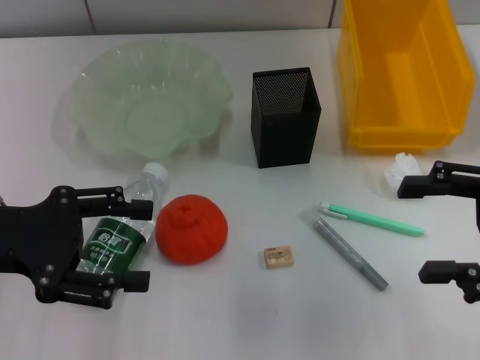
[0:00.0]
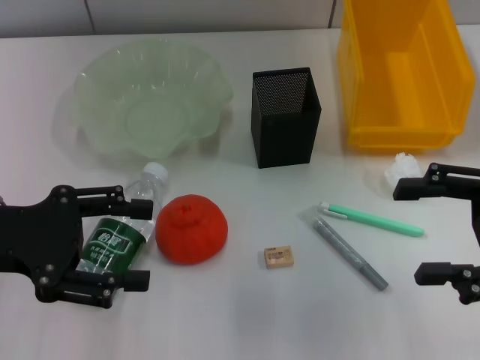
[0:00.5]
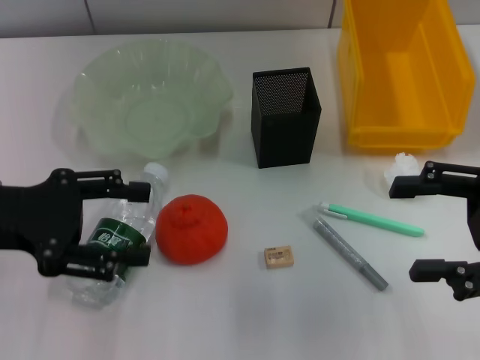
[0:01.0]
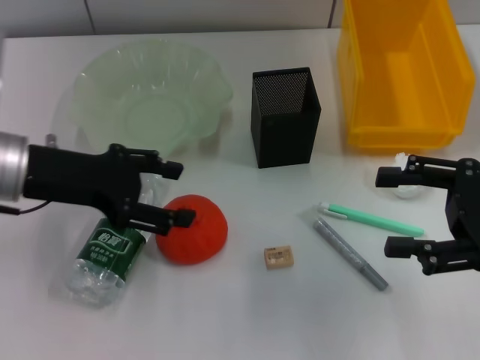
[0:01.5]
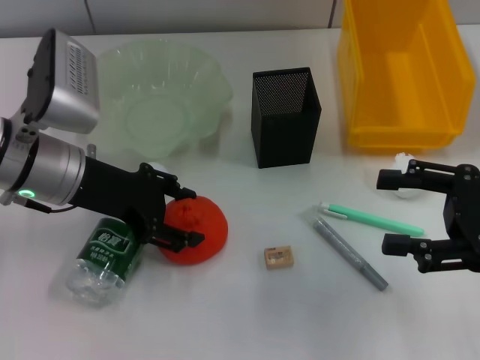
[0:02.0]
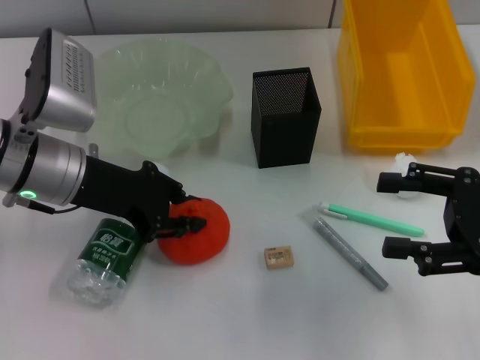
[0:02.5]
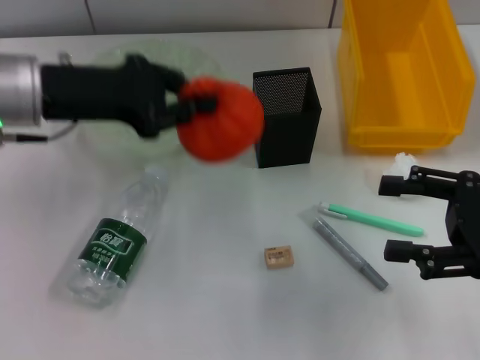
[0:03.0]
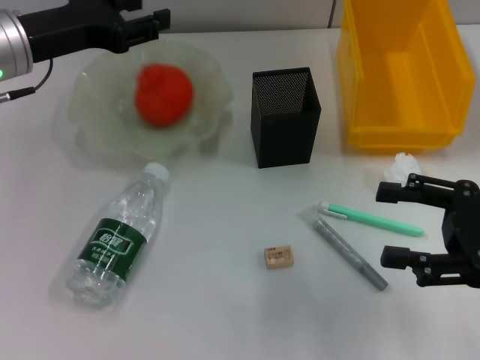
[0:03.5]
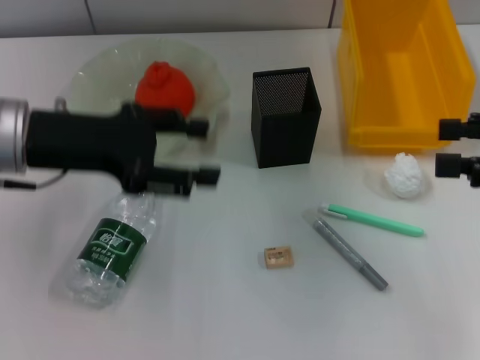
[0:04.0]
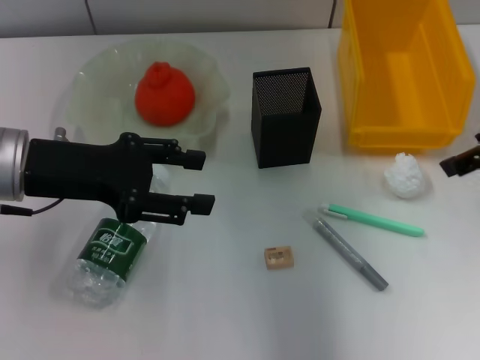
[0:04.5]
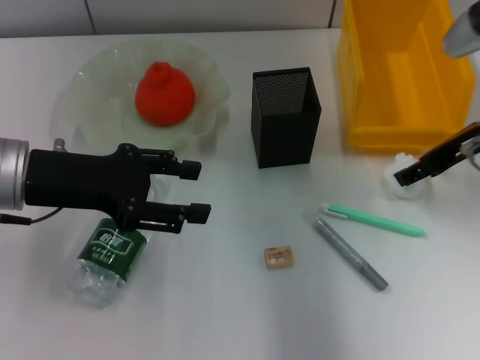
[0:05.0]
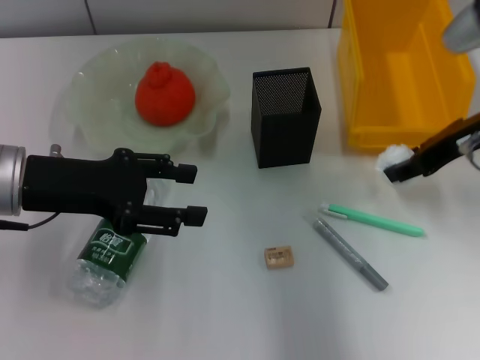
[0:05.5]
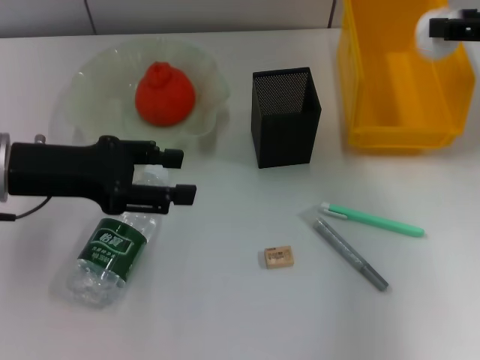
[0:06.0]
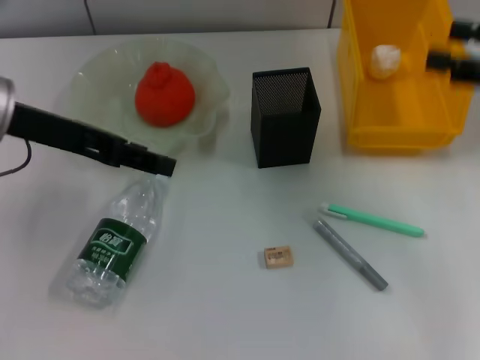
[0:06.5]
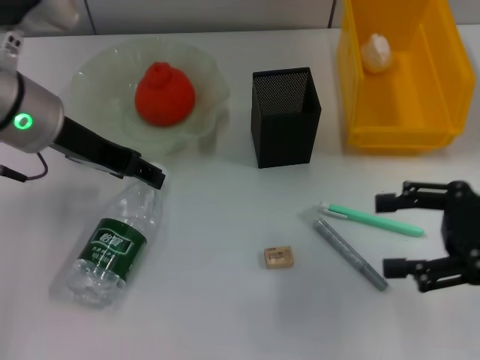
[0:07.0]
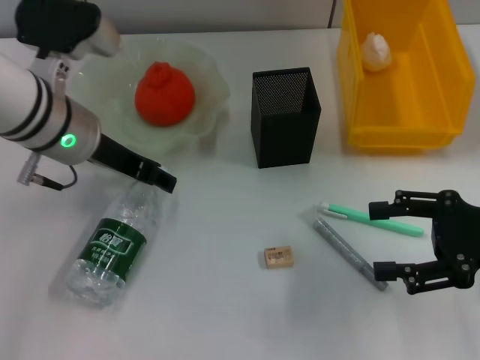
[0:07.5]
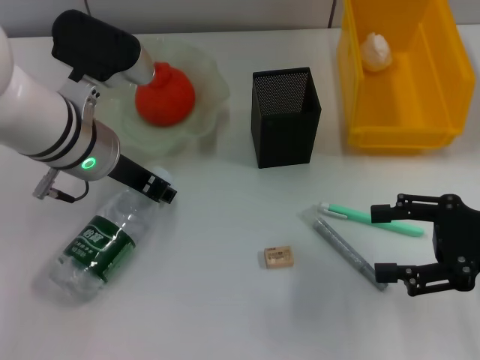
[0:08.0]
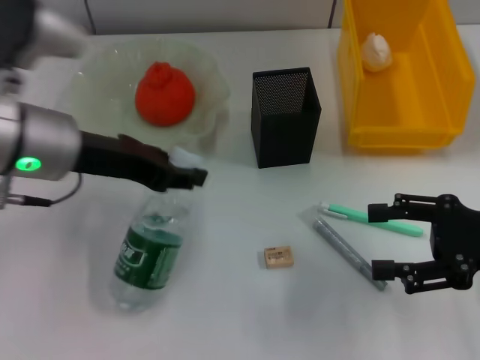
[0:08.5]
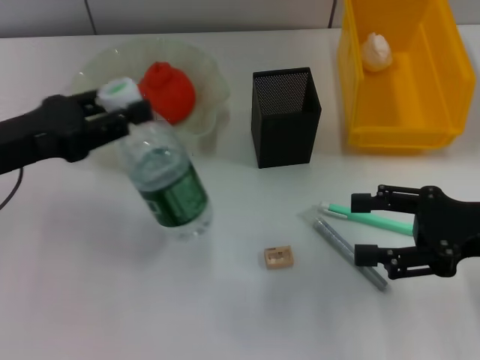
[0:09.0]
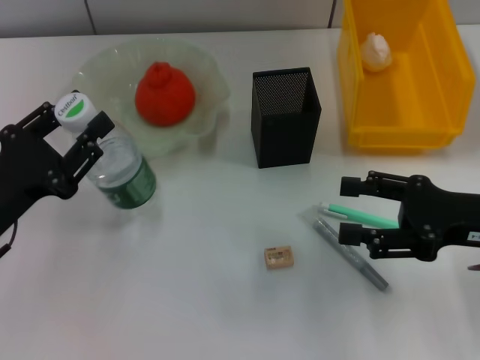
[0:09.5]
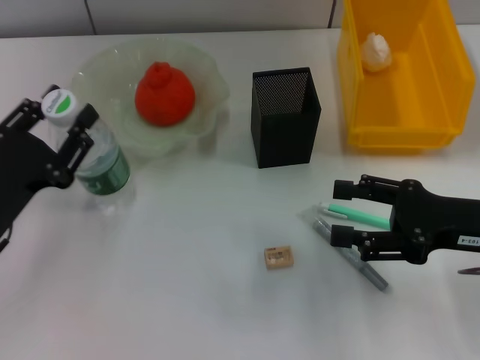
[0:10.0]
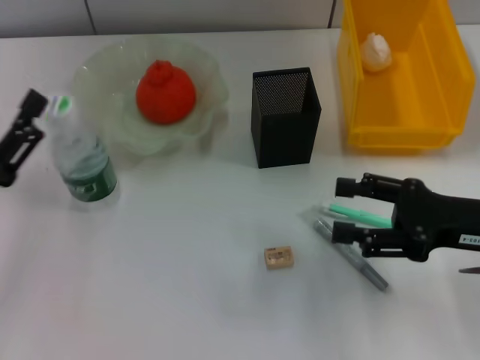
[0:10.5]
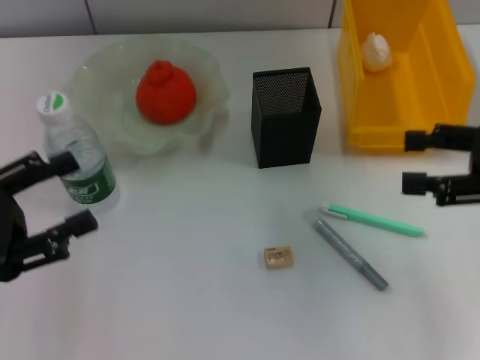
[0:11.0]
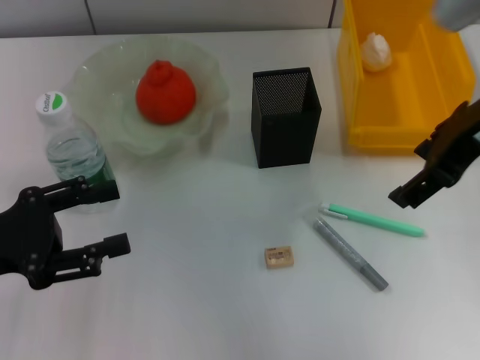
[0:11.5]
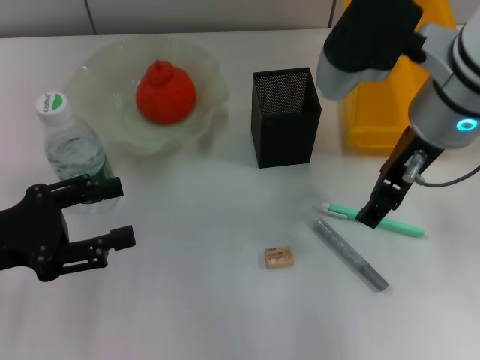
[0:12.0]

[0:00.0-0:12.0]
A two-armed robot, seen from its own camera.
Step, 0:00.0 to 0:02.5: Grab the orange with the left hand.
Step, 0:04.0 to 0:05.0: Grab the paper ball with the right hand.
Step, 0:05.5 to 0:06.5: Place the paper ball into the trash can with the right hand.
Step, 0:07.0 to 0:07.5: Grab the water bottle with the left hand.
Step, 0:08.0 to 0:10.0: Place the water bottle on the table with the left hand.
0:00.0 to 0:02.0: The left gripper moves forward and to the right, approximately 10 cm.
0:02.0 to 0:04.0: The left gripper closes, then reopens, while the right gripper travels upward by about 5 cm.
0:04.0 to 0:06.0: The right gripper moves forward, about 10 cm.
0:06.0 to 0:08.0: The right gripper is displaced downward and backward by about 15 cm, and opens, while the left gripper is displaced to the right by some 10 cm, and closes.
0:08.0 to 0:10.0: The left gripper travels backward, to the left and downward by roughly 20 cm.
0:10.0 to 0:12.0: The left gripper changes place by roughly 5 cm, and opens up. The right gripper shifts approximately 20 cm to the left, upward and forward.

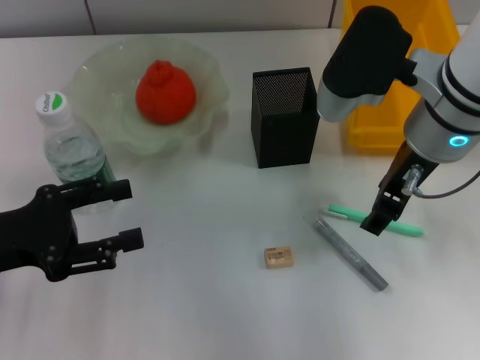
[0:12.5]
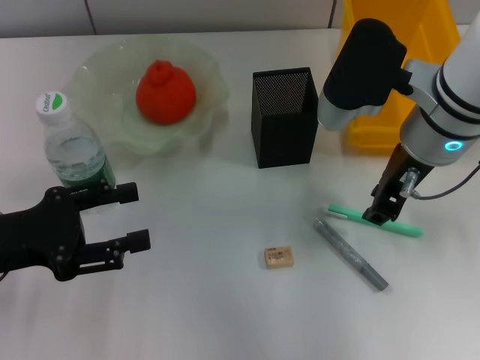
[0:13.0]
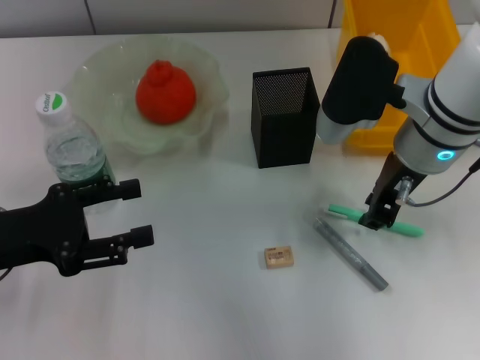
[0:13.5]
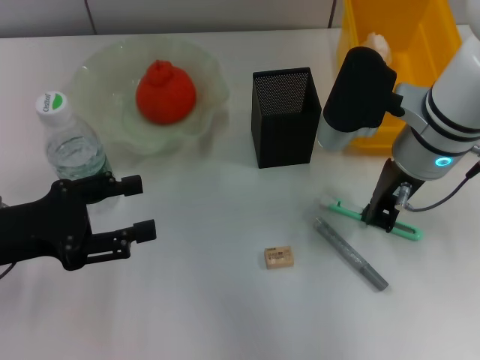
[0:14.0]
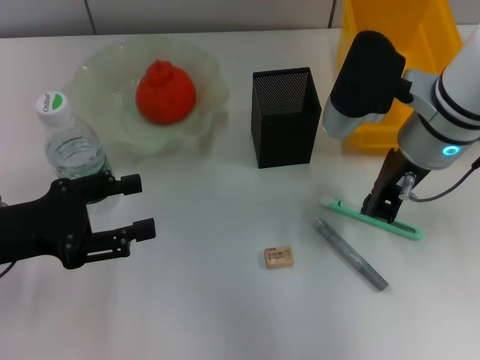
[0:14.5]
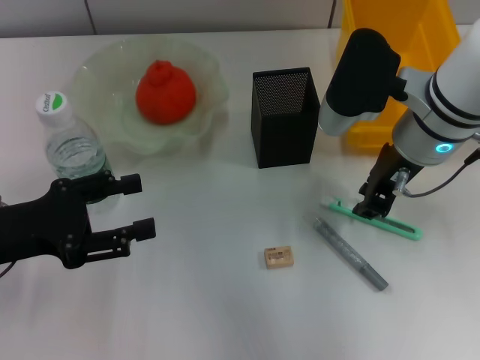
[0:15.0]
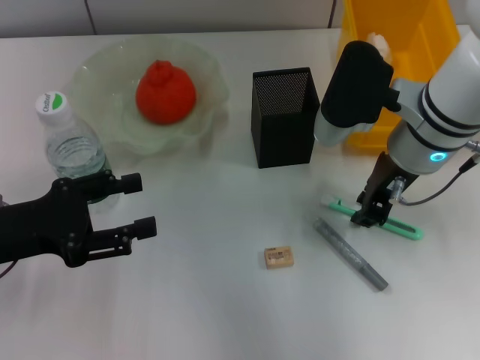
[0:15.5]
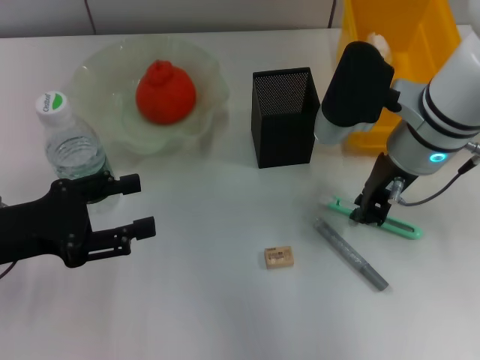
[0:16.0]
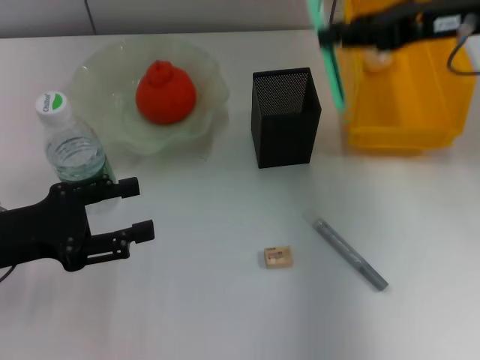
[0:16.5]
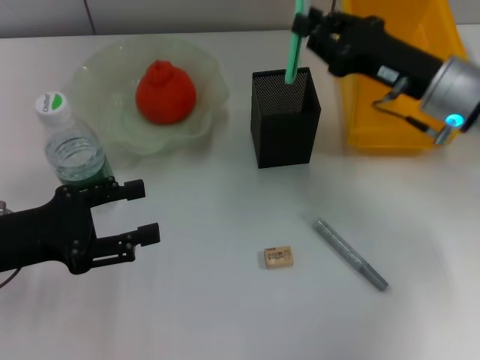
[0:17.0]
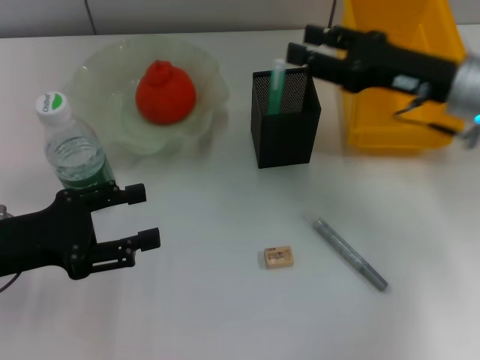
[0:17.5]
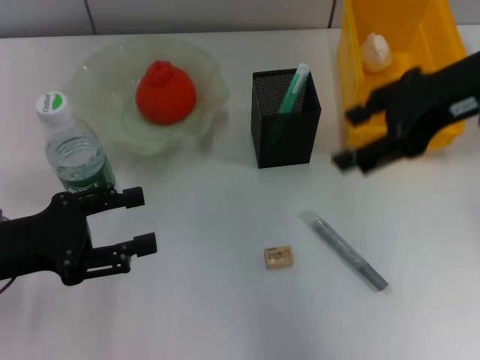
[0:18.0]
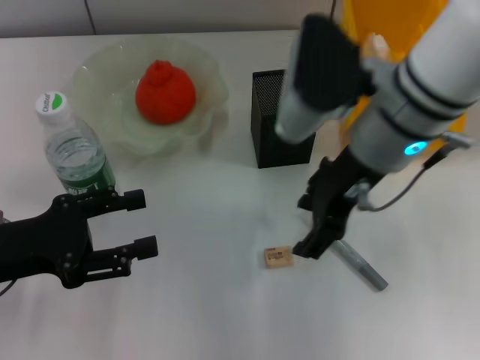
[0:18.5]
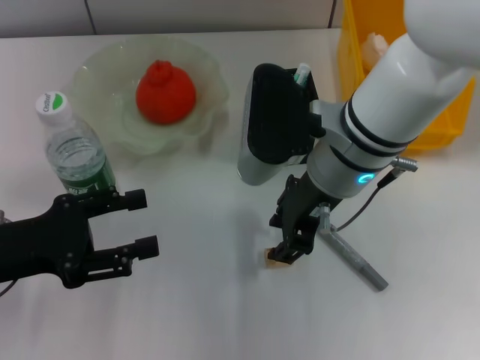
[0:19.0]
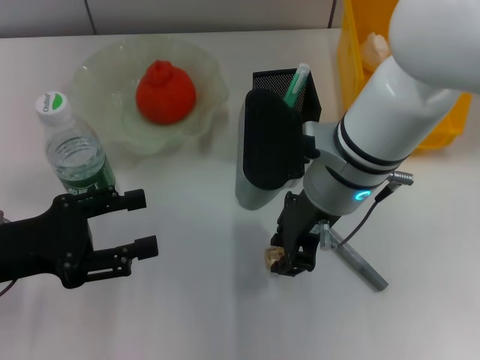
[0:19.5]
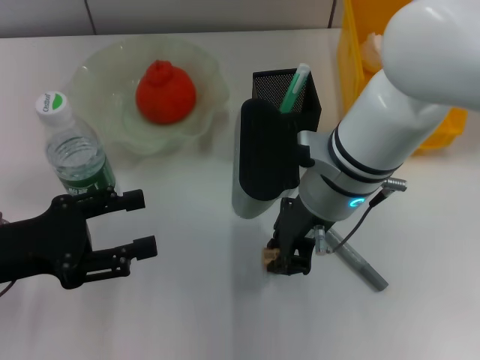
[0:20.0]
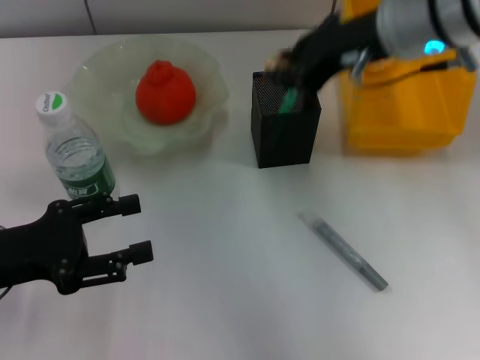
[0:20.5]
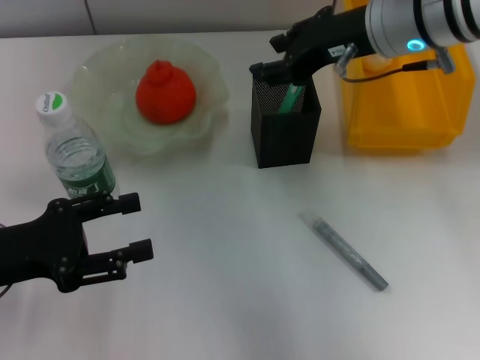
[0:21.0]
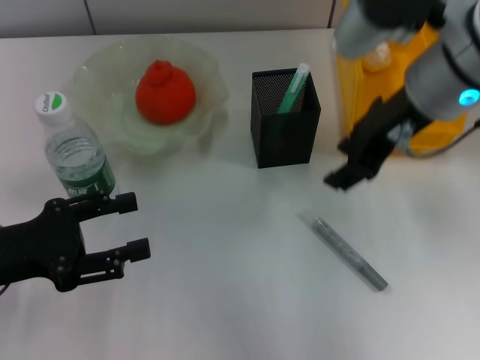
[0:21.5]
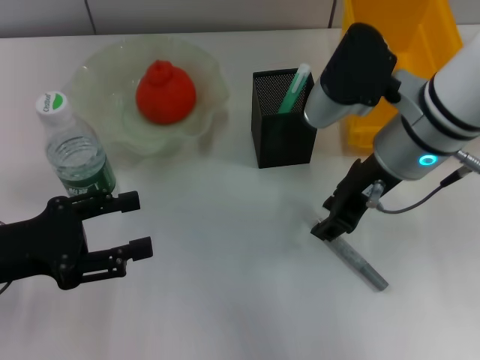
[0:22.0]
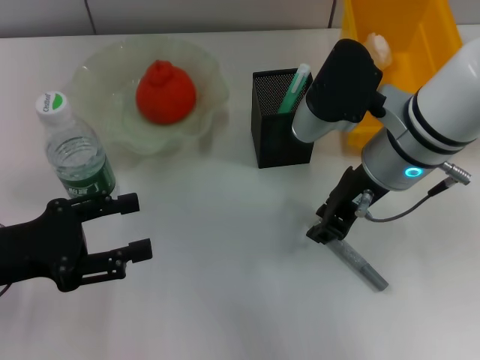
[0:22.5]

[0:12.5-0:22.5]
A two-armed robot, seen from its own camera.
Step, 0:12.5 to 0:15.5: Grab the blue utility knife with the right hand.
Step, 0:16.0 to 0:17.0: Place the blue utility knife into the pen holder with the right hand.
Step, 0:17.5 to 0:20.0: Grab the eraser with the right hand.
0:12.5 to 0:14.5: The right gripper closes.
0:14.5 to 0:16.5: The right gripper heads to the right and upward, covering about 10 cm.
0:16.5 to 0:18.5: The right gripper swings up and down, approximately 15 cm each way, with 2 reversals, and opens up.
0:18.5 to 0:20.5: The right gripper moves some 5 cm, and closes.
0:20.5 to 0:22.5: The right gripper heads downward, covering some 10 cm.

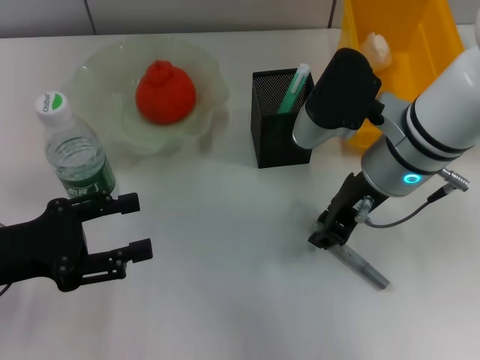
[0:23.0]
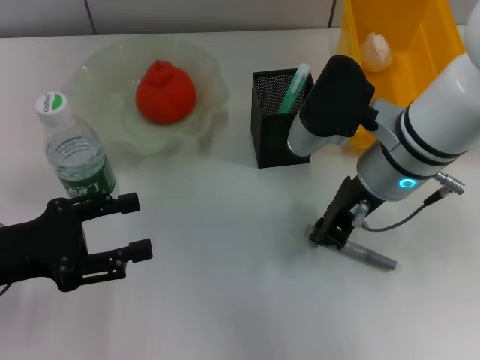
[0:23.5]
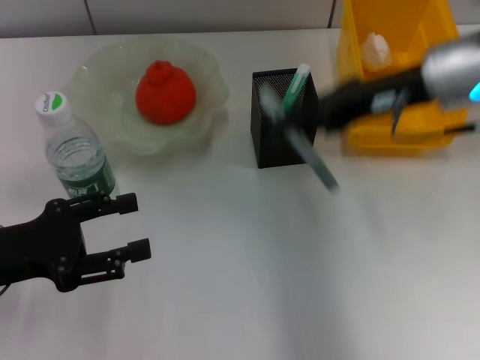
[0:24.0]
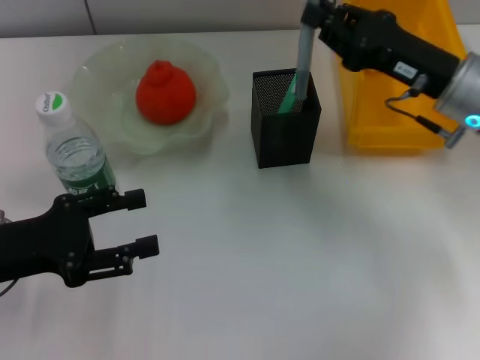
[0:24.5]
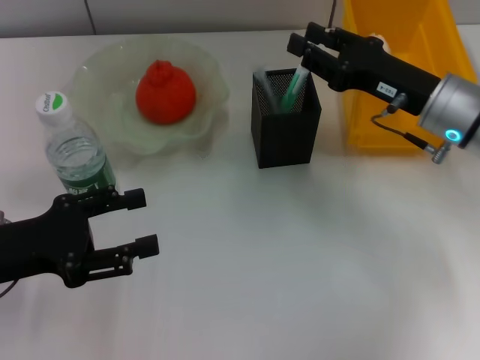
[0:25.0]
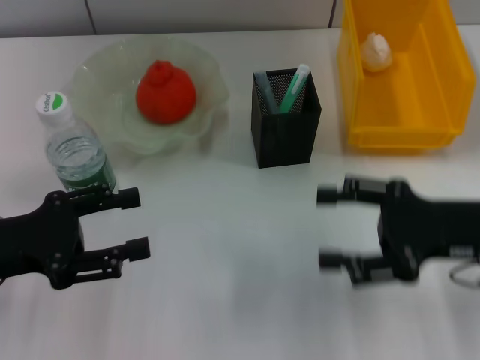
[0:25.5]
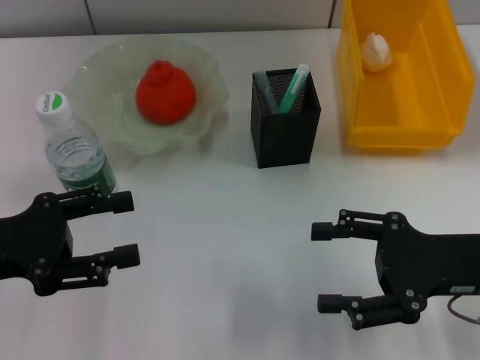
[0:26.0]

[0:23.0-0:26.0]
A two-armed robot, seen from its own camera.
Step, 0:24.0 to 0:25.0: Place the gray glue into the pen holder with the right hand.
0:23.0 to 0:24.5: The right gripper moves to the right, some 10 cm.
0:24.5 to 0:26.0: The right gripper is displaced backward by some 10 cm, and opens.
